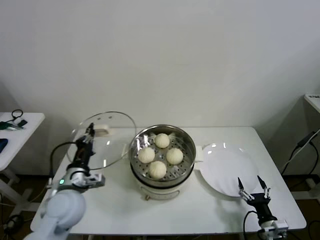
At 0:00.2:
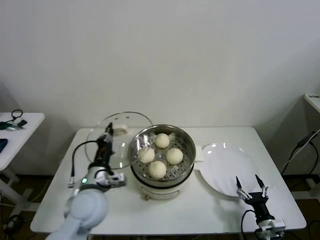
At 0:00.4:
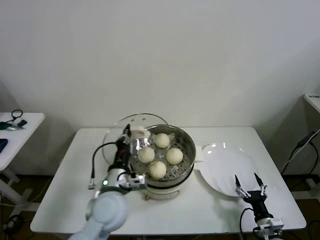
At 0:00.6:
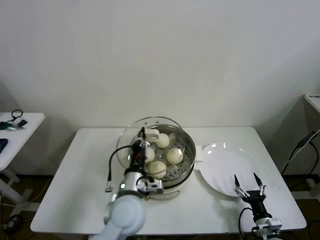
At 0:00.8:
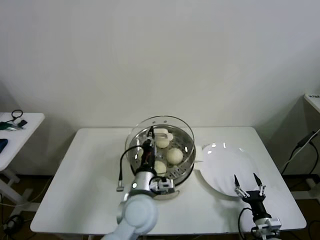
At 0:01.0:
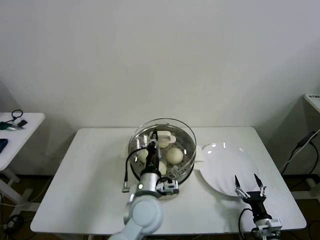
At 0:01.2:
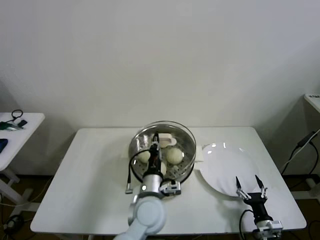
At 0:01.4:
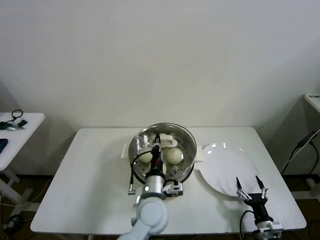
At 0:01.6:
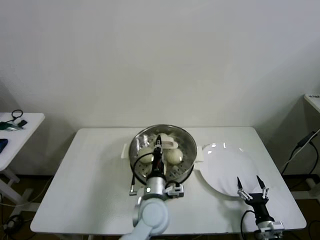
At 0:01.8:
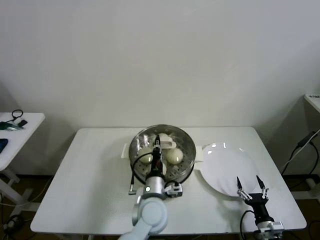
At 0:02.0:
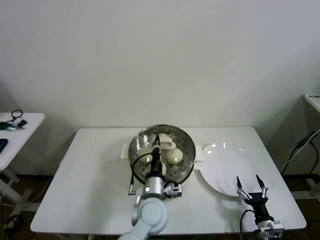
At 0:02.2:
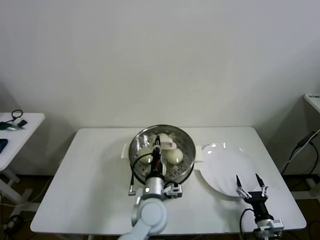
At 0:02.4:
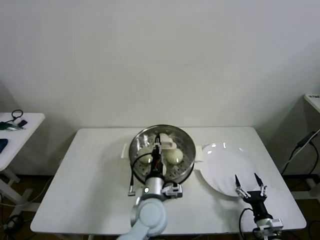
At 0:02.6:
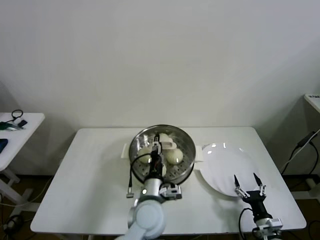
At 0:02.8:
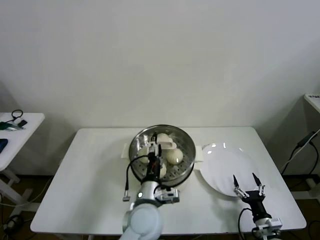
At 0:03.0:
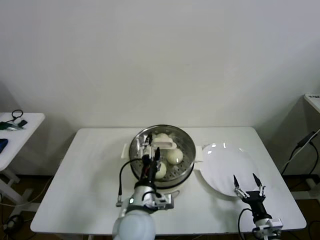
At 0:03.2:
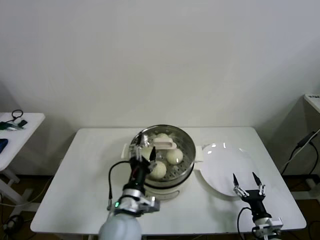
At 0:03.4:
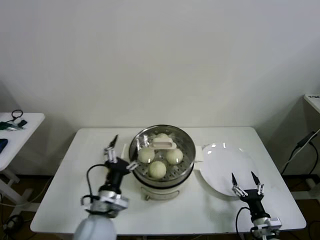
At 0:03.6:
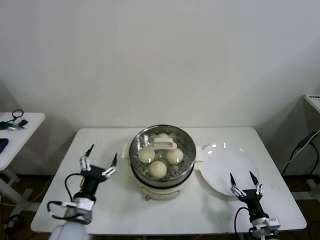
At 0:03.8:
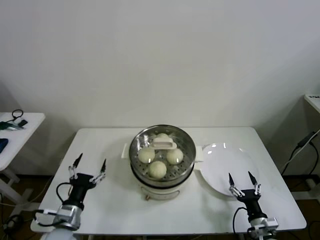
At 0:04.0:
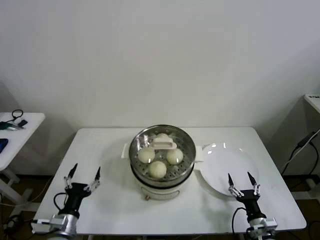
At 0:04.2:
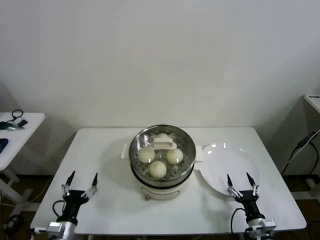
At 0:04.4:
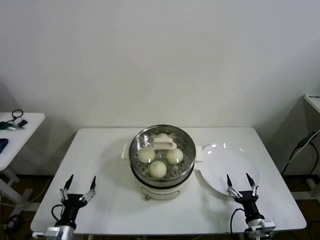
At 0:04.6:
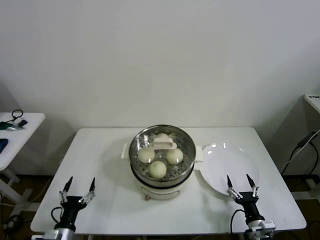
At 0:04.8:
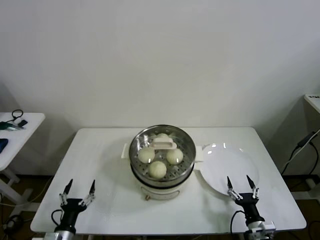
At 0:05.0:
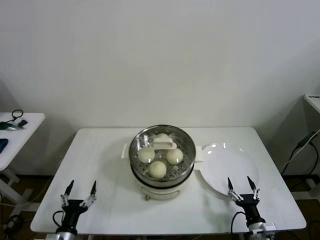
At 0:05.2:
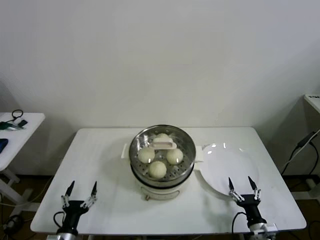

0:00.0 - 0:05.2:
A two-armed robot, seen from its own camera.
Task of the whole recording: take steamed baozi put them in steamer then cover it.
Step, 0:00.0 - 0:02.8: Place the pot lid on the steamer with left gripper.
0:00.0 - 0:01.8: The left gripper goes some 25 cm to the right.
0:01.8 - 0:03.4: The left gripper is displaced to the left and backward by some 15 cm, and opens.
0:03.4 - 0:05.2: The left gripper moves to the left, downward and backward, about 25 cm.
